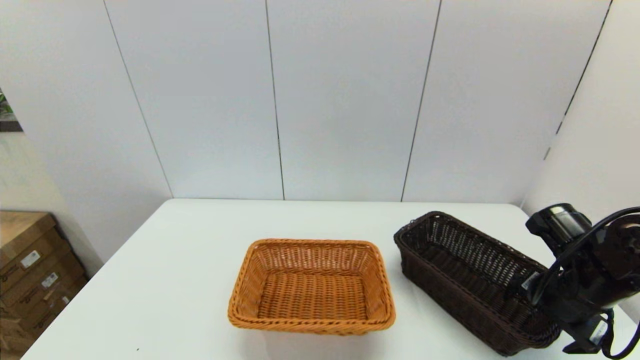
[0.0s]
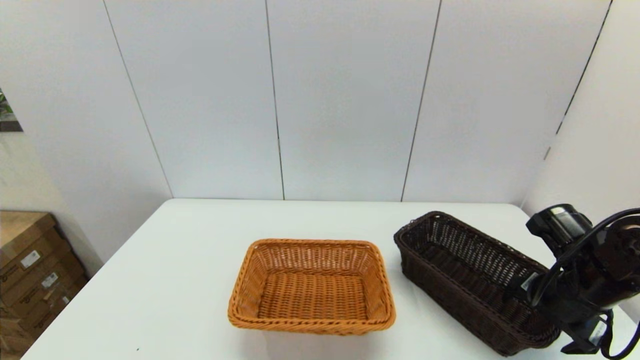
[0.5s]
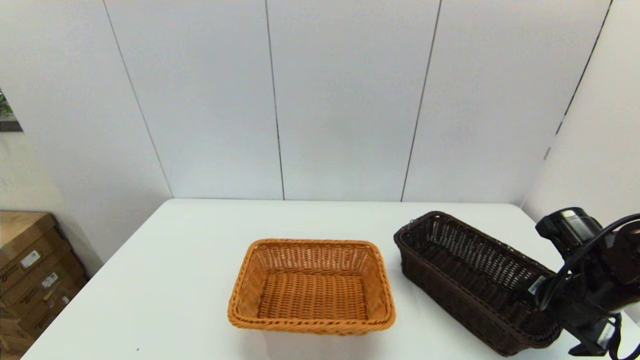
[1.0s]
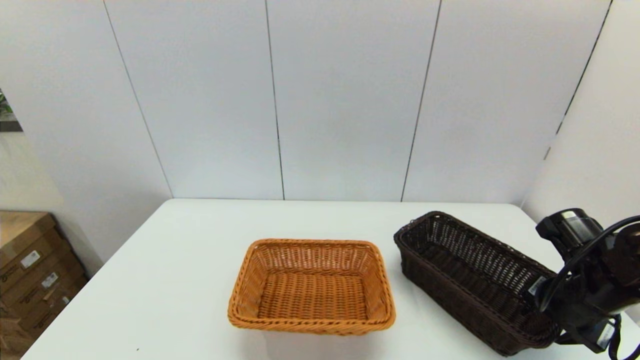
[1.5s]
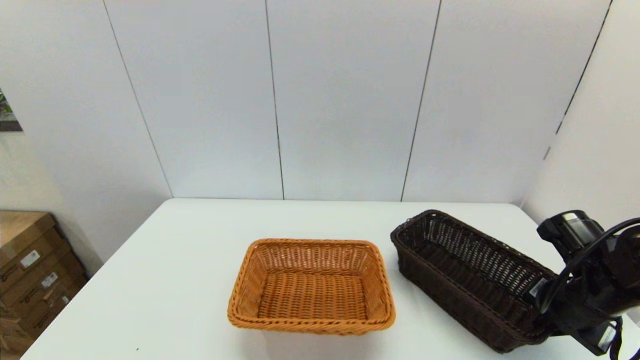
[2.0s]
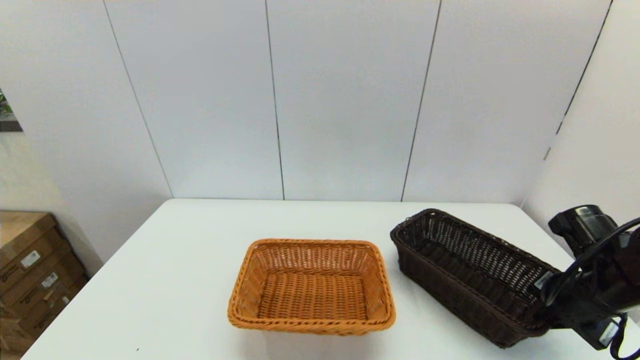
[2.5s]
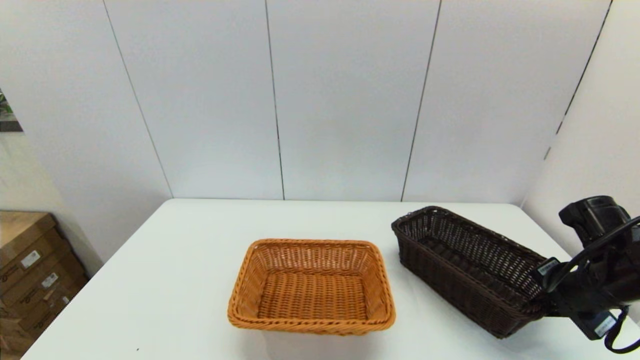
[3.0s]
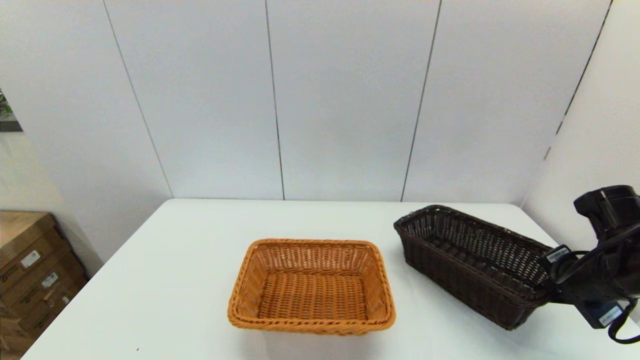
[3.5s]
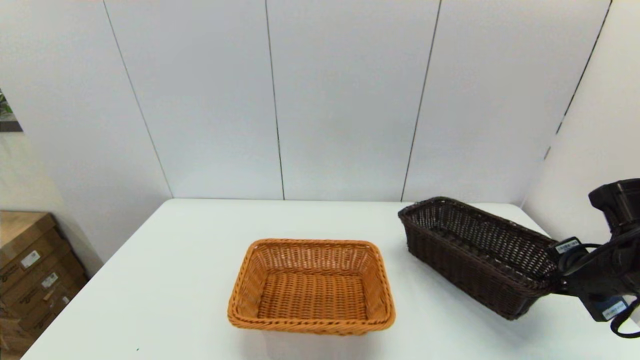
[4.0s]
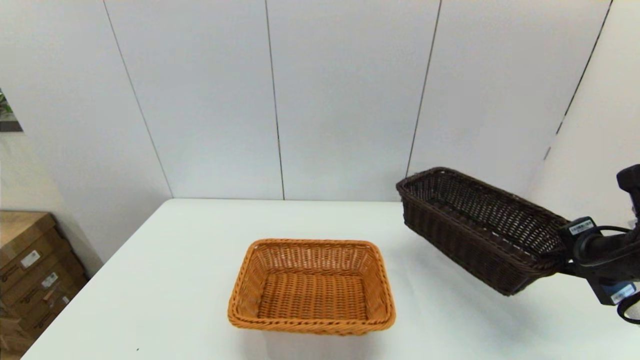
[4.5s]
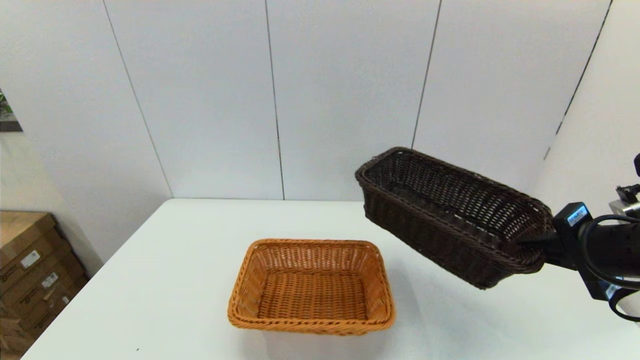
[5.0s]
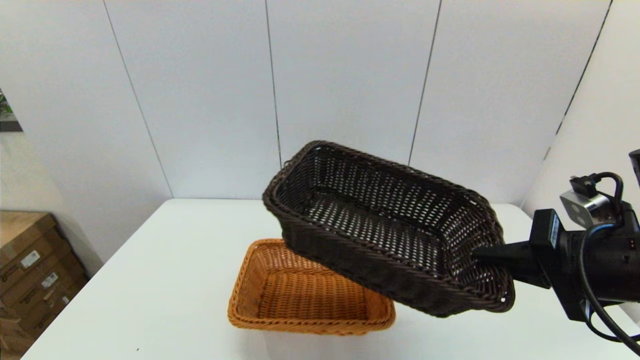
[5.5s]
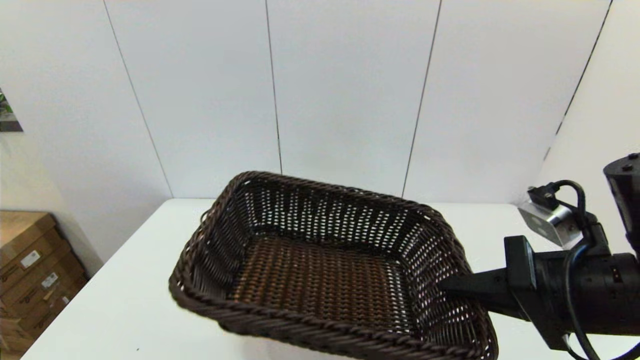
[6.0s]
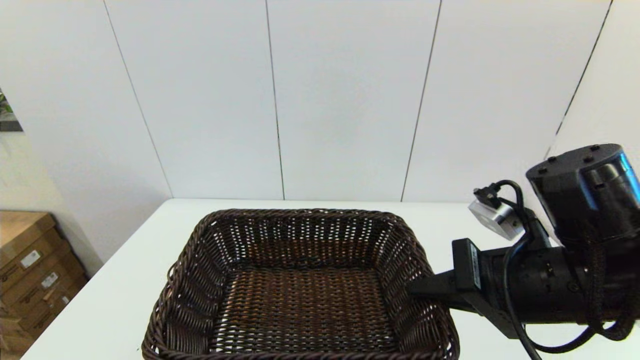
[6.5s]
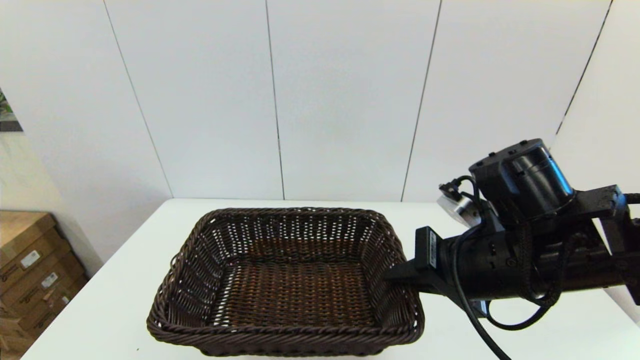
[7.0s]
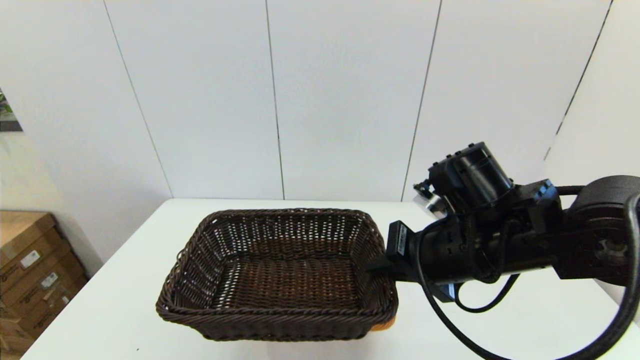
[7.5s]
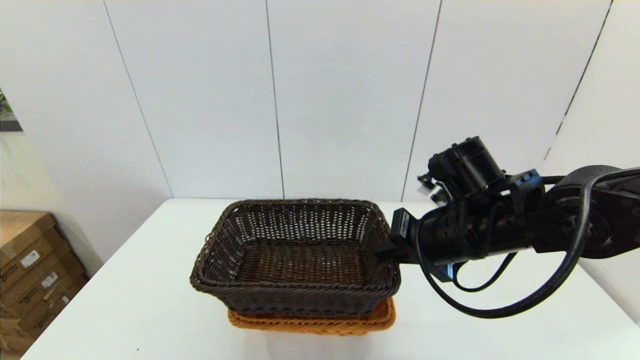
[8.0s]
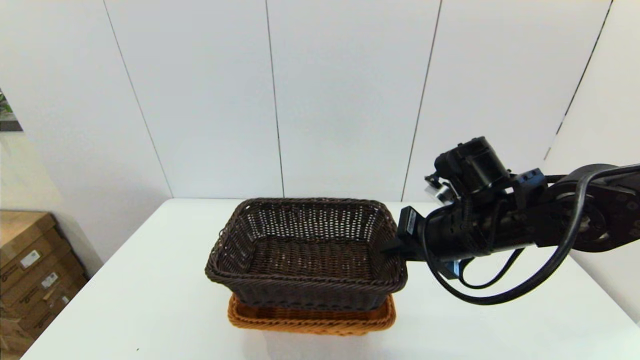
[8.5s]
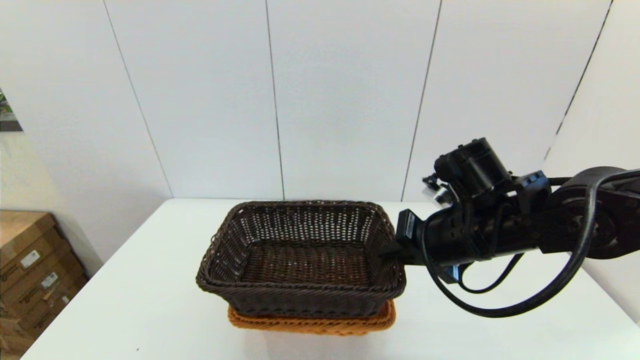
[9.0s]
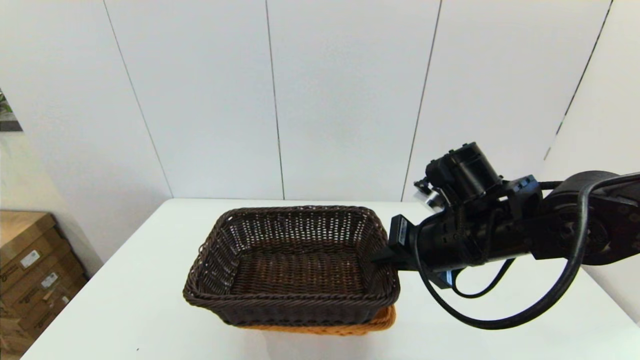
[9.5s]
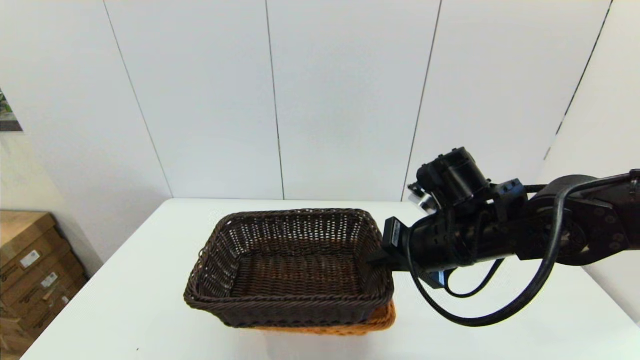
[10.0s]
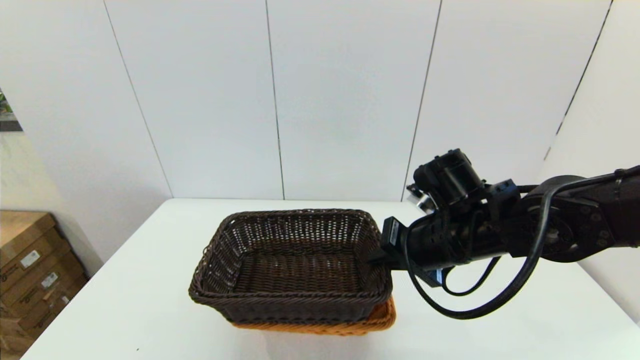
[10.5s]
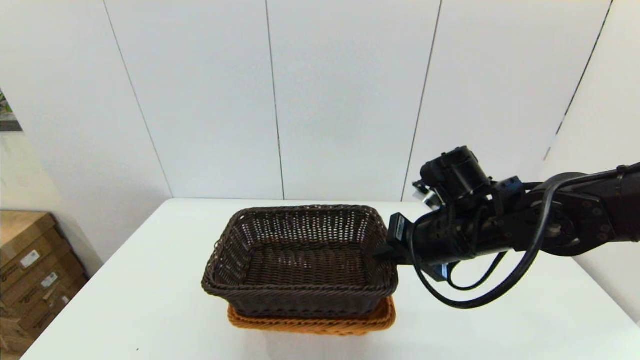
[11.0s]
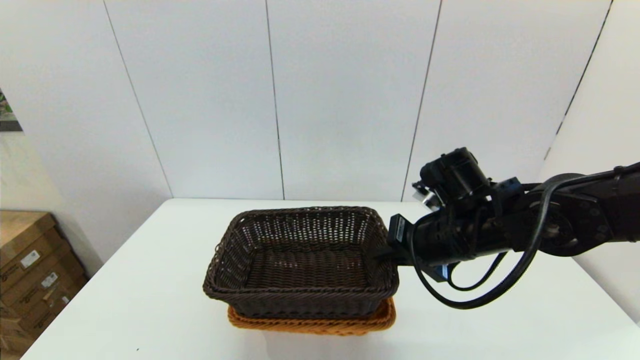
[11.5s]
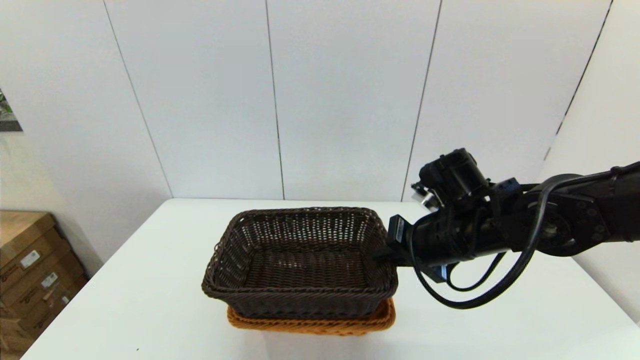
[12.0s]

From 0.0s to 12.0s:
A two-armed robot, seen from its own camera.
Task of the whole recording: stack a basket on top of another basket.
Step, from 0.0s to 2.0s: Grasp the dark basket with the right gripper.
From 0.0s to 2.0s: The right gripper closes.
From 2.0s to 4.0s: The right gripper changes place by about 5 cm.
From 4.0s to 6.0s: The right gripper goes some 20 cm to the left, backward and upward.
From 6.0s to 8.0s: The right gripper travels forward and to the left by approximately 15 cm.
From 8.0s to 12.0s: The grippers move only a little.

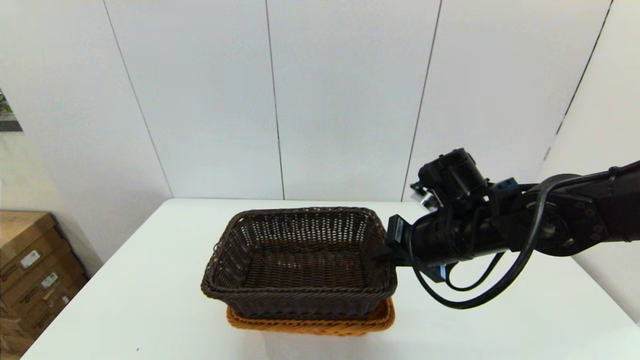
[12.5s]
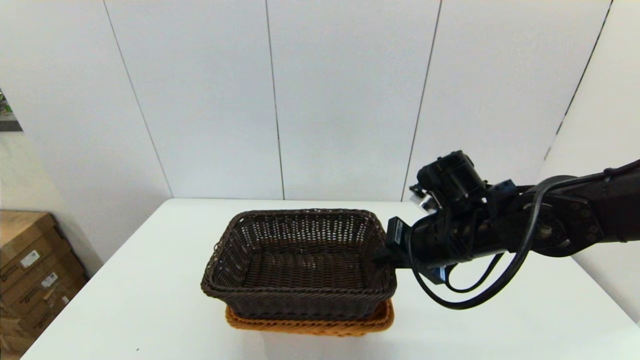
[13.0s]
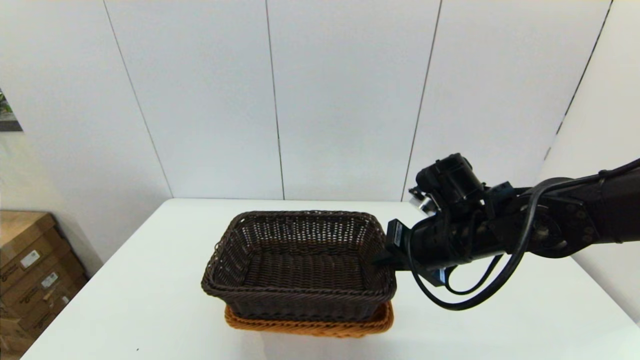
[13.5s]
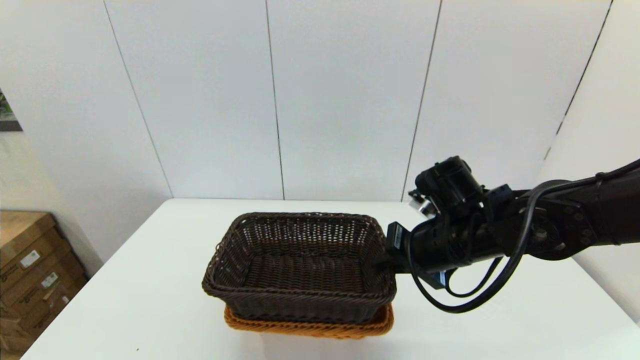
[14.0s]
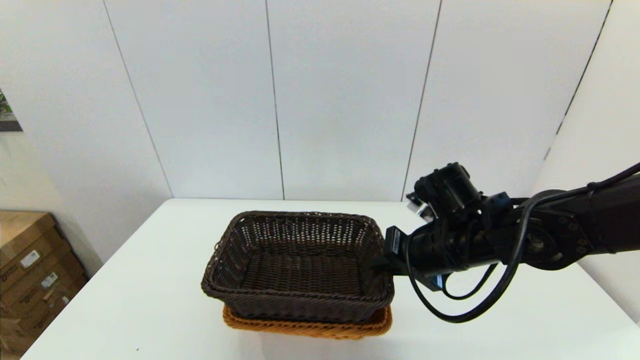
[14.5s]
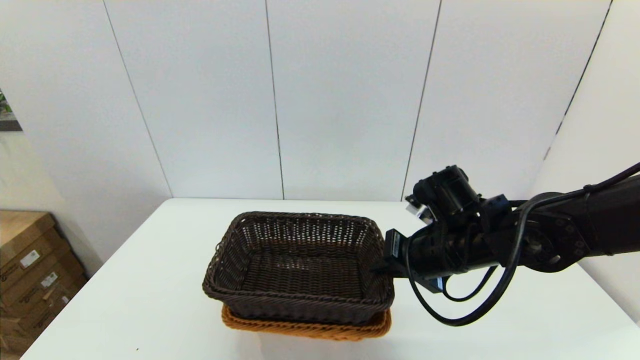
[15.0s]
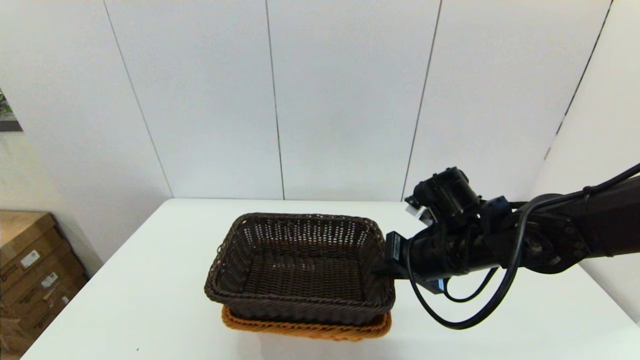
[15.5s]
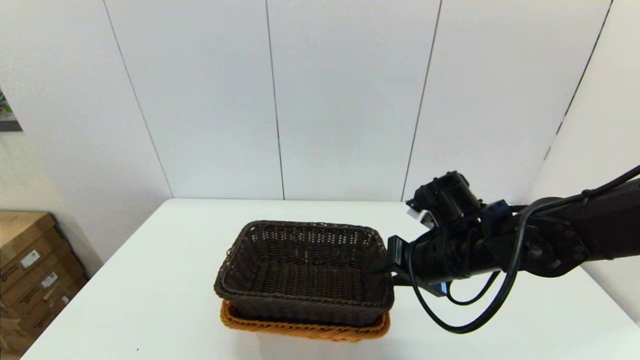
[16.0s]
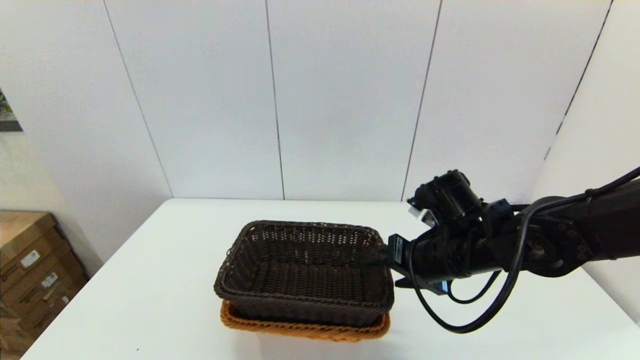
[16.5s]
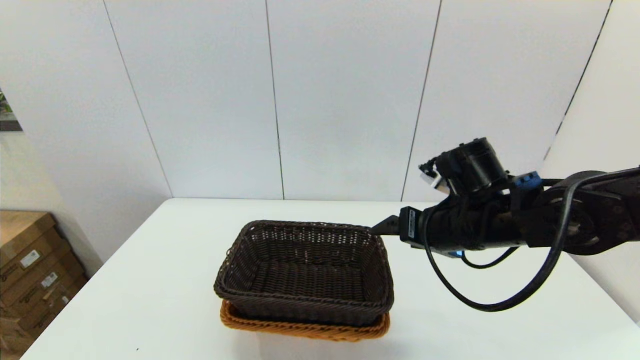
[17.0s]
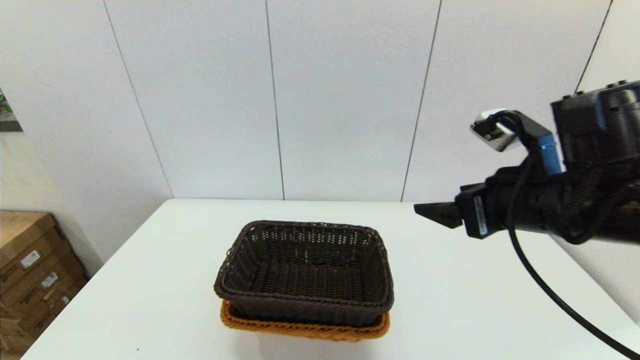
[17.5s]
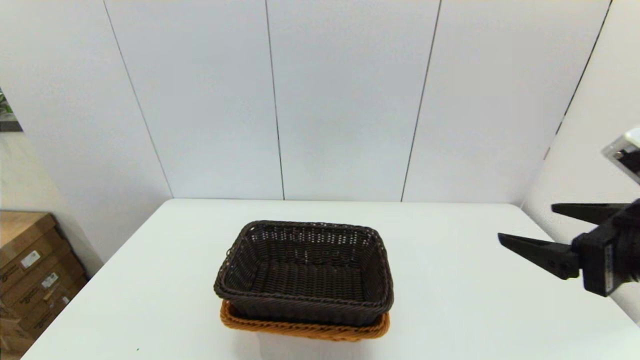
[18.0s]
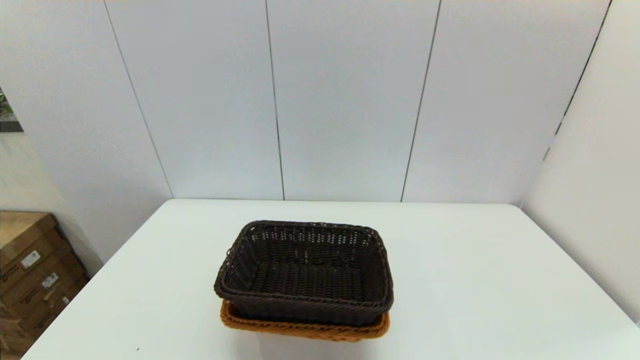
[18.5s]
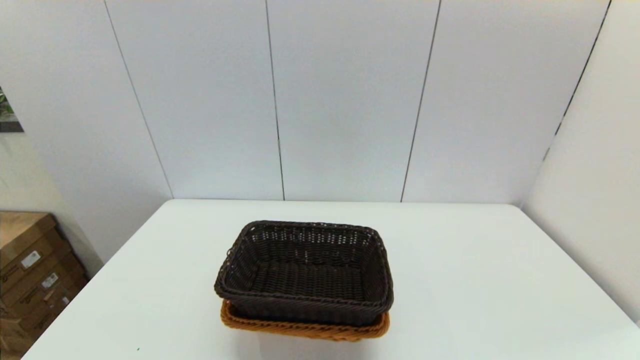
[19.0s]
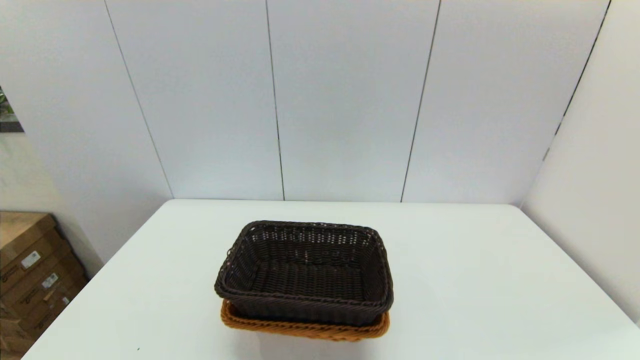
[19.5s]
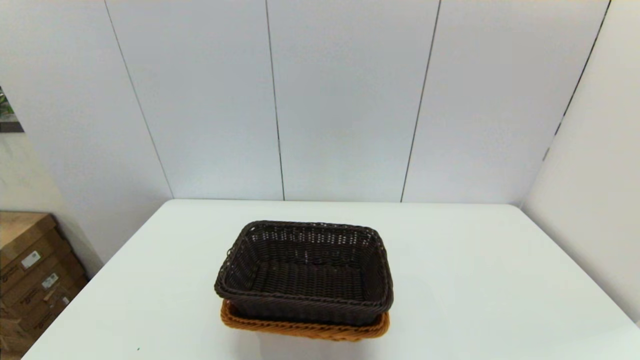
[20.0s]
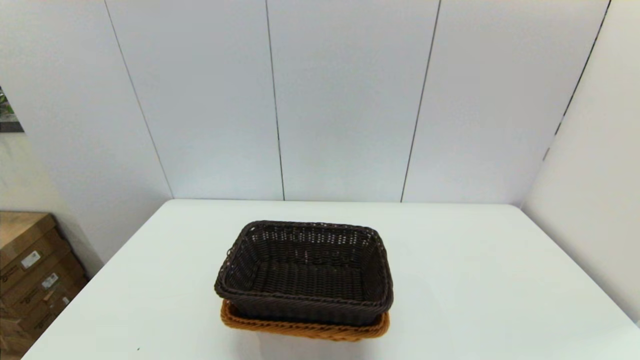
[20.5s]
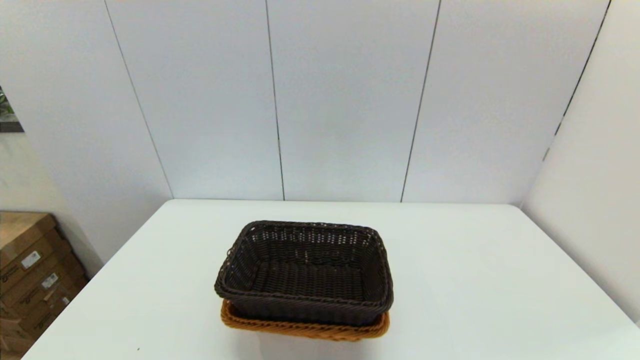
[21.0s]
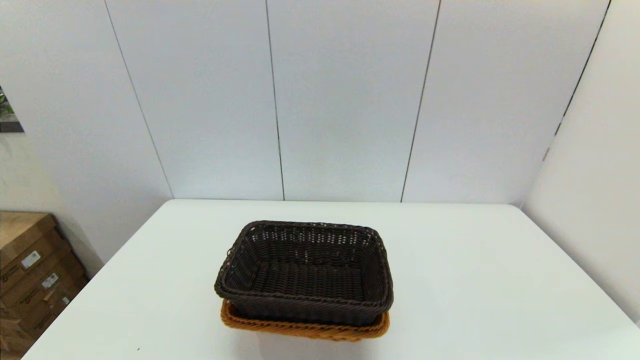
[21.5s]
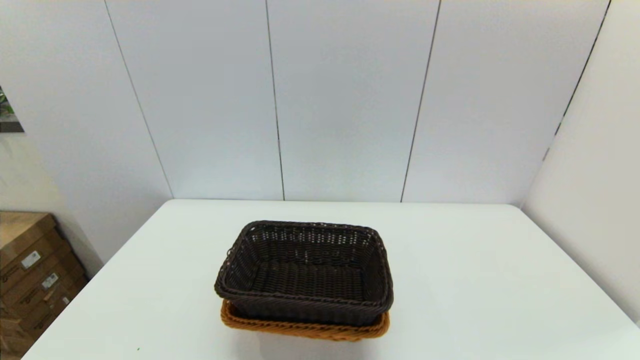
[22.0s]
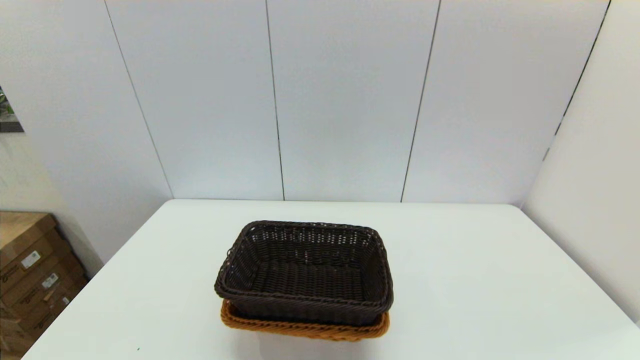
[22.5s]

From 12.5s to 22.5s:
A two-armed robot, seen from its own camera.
Task of the whole recording: stack a basket on top of another basket.
Step, from 12.5s to 16.5s: Place the dark basket into the light color basket with the right gripper.
From 12.5s to 14.5s: The grippers move only a little.
From 14.5s to 16.5s: The right gripper opens up.
From 16.5s to 18.5s: The right gripper goes approximately 30 cm backward and to the right.
From 20.5s to 22.5s: Both grippers stay put.
